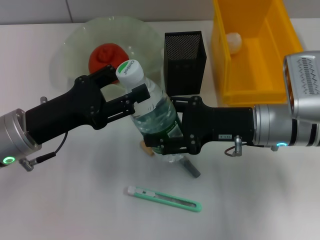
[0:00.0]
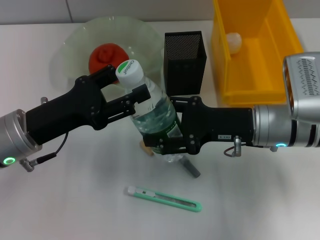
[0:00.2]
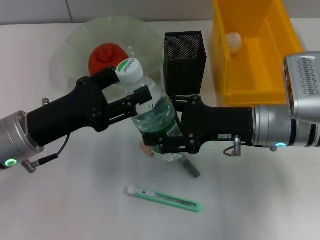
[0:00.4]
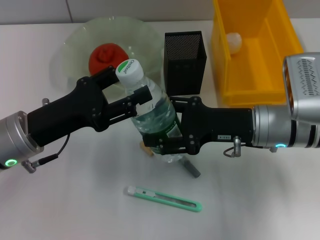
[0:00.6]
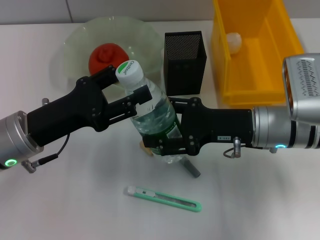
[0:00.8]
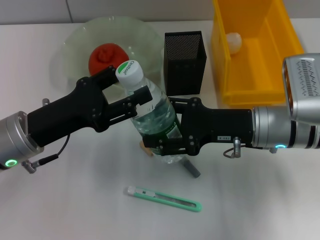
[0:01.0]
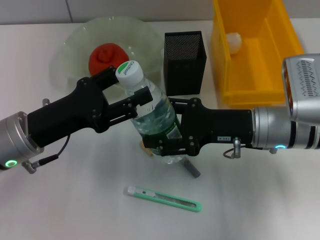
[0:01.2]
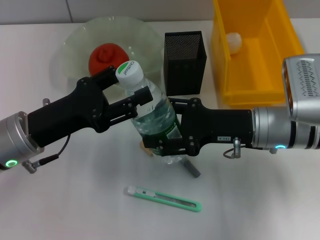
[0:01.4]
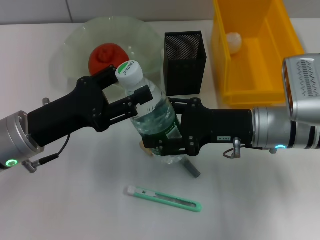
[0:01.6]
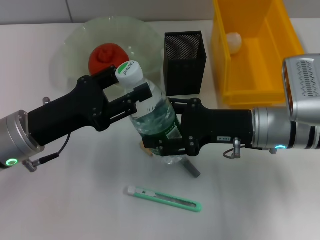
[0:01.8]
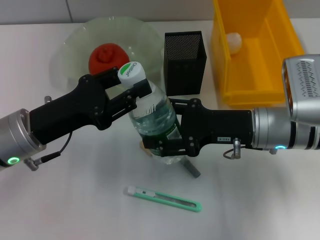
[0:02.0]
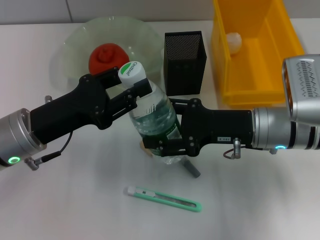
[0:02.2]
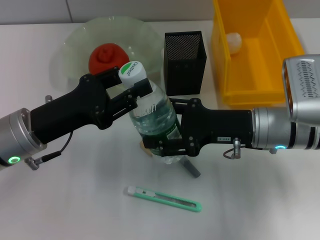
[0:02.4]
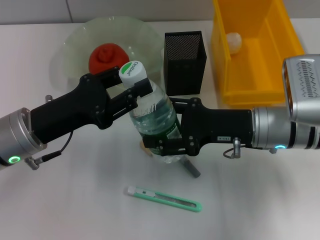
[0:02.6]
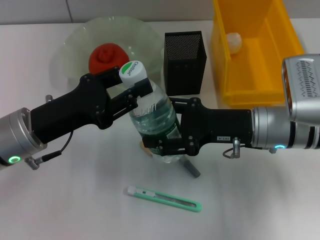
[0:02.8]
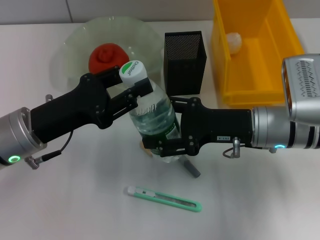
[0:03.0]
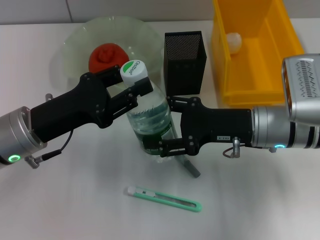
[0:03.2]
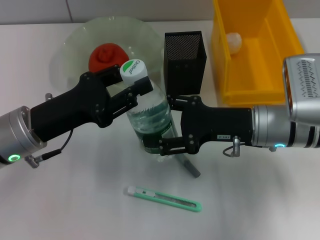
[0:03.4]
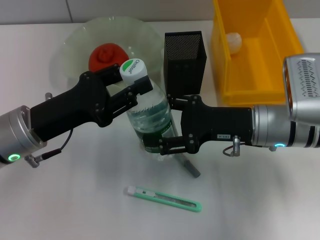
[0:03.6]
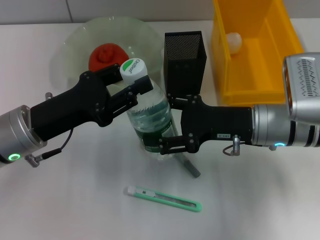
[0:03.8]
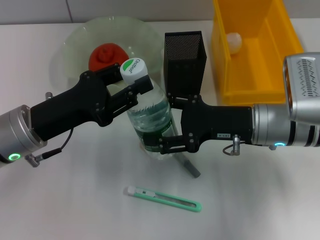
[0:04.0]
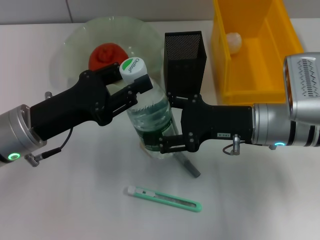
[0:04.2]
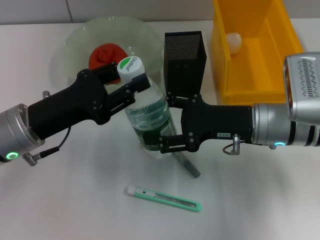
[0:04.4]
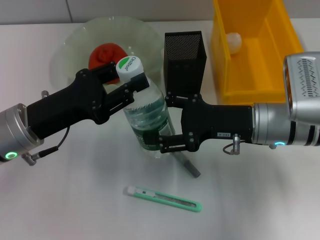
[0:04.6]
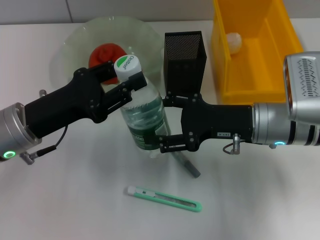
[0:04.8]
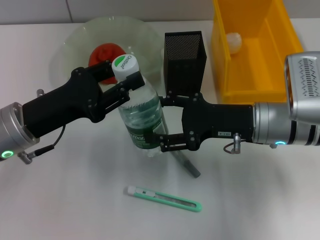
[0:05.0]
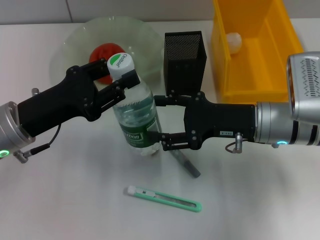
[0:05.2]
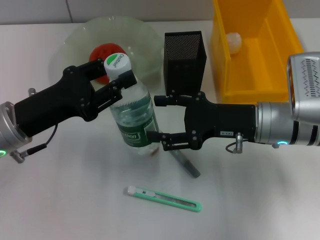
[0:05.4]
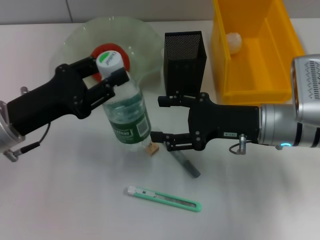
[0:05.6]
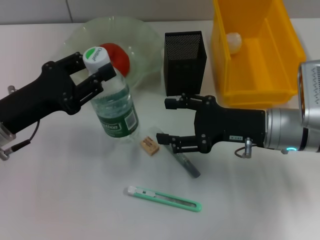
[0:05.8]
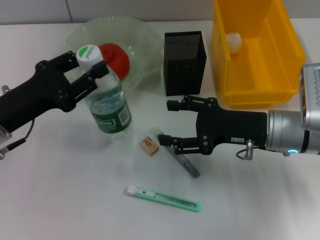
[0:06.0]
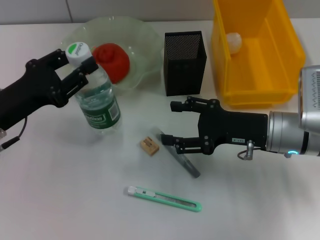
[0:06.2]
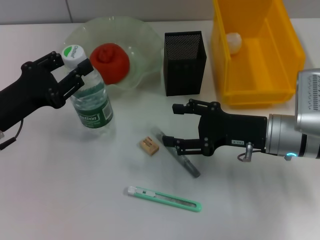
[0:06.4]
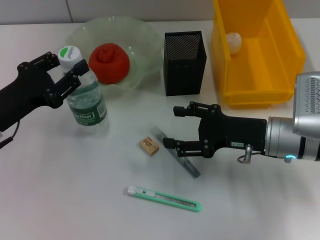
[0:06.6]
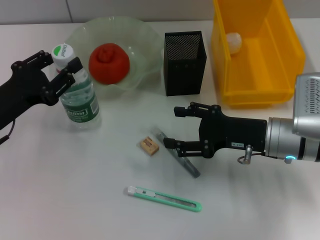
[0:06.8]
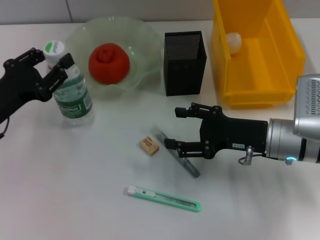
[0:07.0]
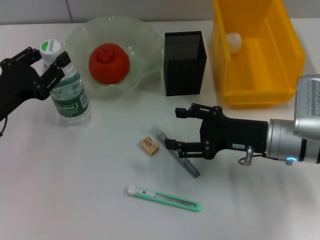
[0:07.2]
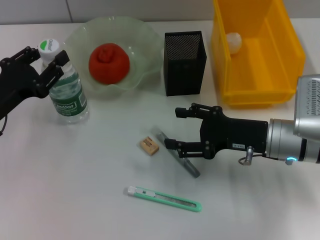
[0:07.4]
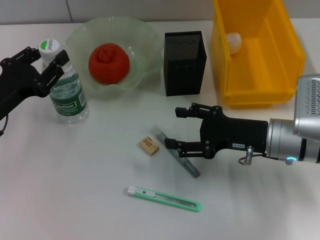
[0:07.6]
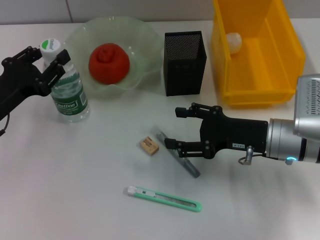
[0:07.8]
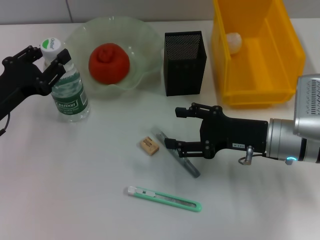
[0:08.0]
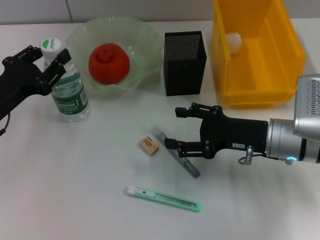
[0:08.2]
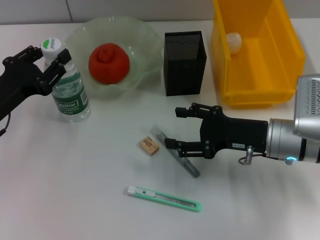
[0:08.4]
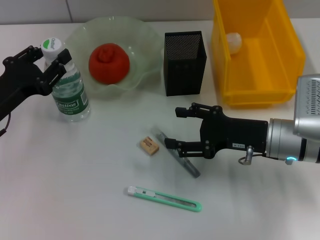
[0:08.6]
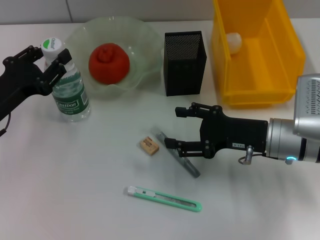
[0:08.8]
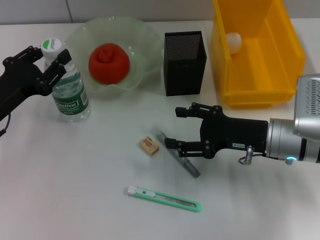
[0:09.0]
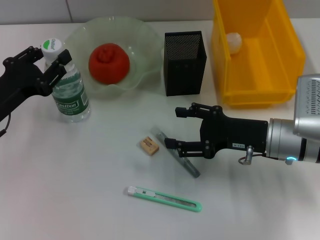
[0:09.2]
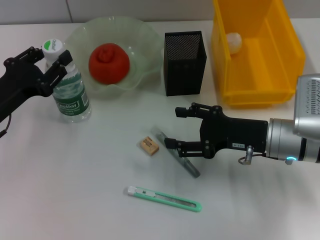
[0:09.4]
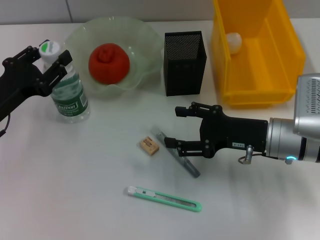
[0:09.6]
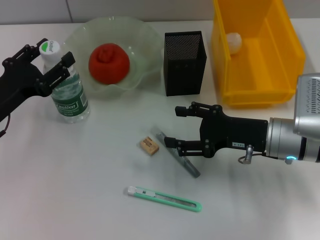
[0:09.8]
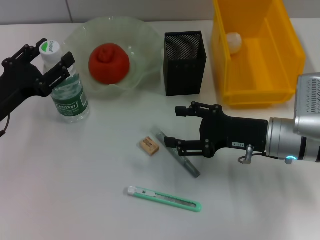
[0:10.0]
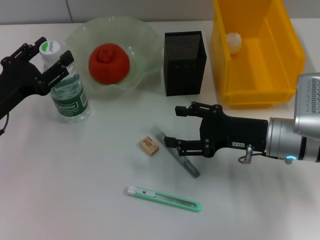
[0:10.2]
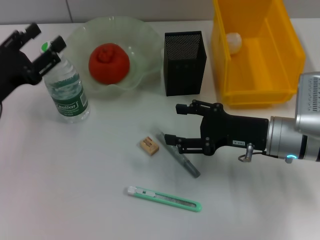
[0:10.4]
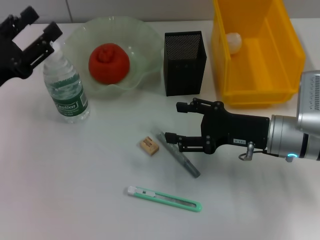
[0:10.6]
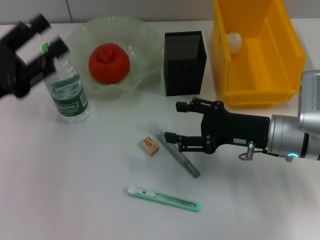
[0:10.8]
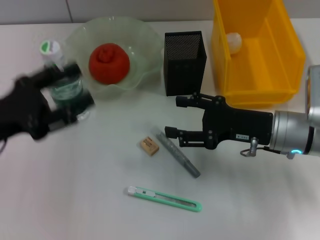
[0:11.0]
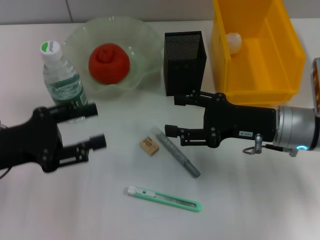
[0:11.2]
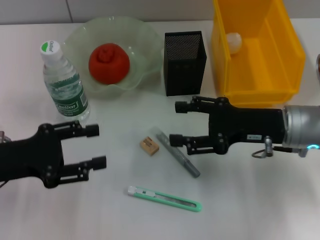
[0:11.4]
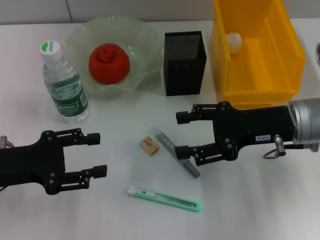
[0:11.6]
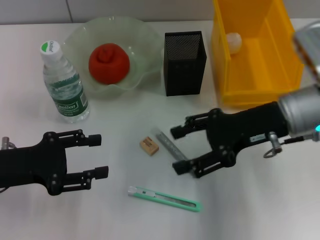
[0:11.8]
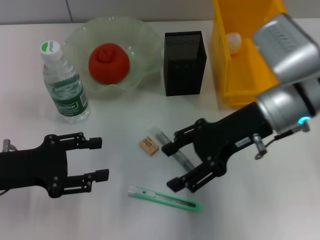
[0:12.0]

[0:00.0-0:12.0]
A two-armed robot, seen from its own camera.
Step, 0:00.0 to 0:05.4: Pass the water bottle from the right hand to the left hand.
Step, 0:05.6 to 0:09.6: Place the water bottle on the table with the left hand.
0:00.0 to 0:01.6: Neither gripper changes place.
0:01.6 to 0:03.0: The left gripper closes up.
0:03.0 to 0:04.4: Both grippers stay about where they are.
0:07.6 to 0:09.0: The two grippers keep their place.
0:09.0 to 0:10.4: The left gripper opens.
0:10.4 to 0:12.0: The right gripper shifts approximately 10 cm upward.

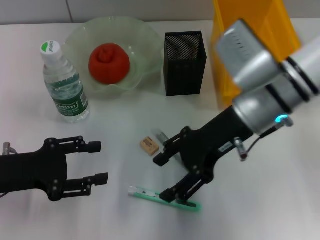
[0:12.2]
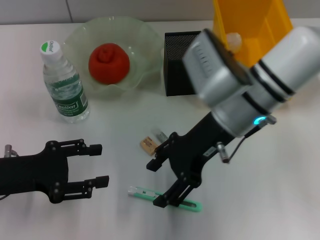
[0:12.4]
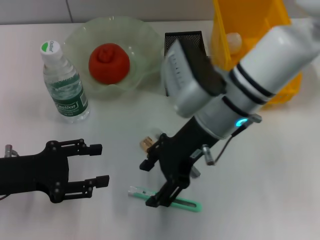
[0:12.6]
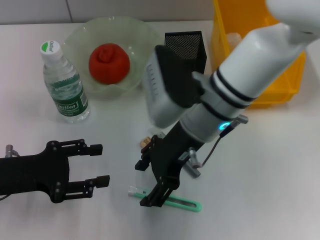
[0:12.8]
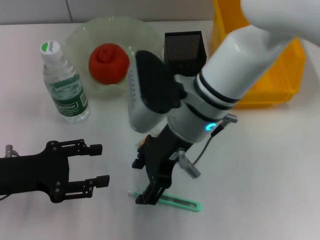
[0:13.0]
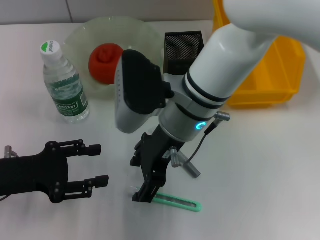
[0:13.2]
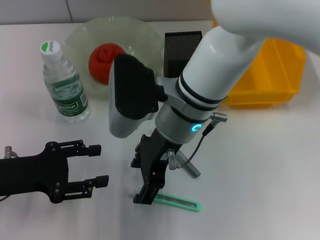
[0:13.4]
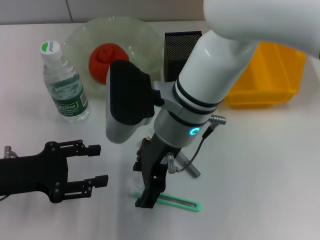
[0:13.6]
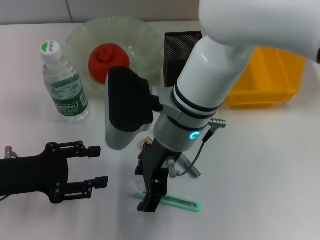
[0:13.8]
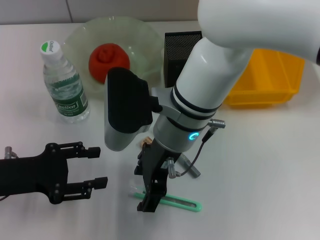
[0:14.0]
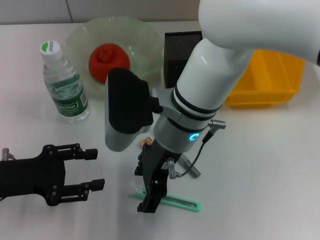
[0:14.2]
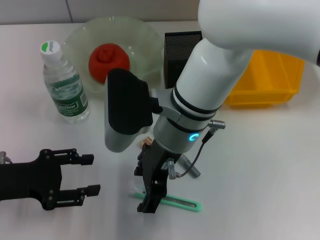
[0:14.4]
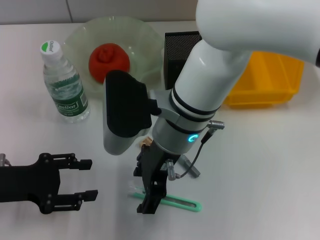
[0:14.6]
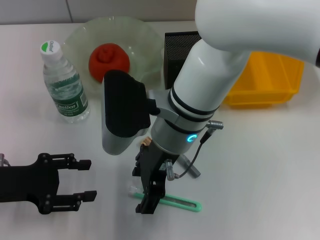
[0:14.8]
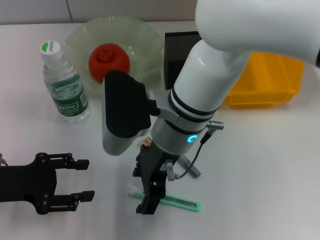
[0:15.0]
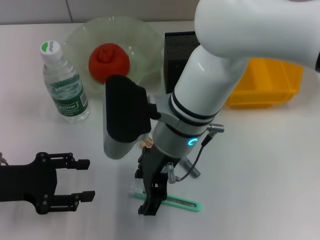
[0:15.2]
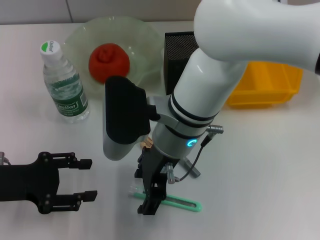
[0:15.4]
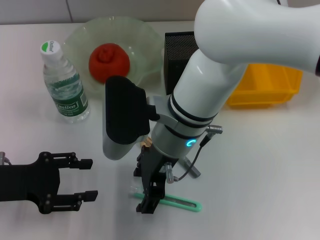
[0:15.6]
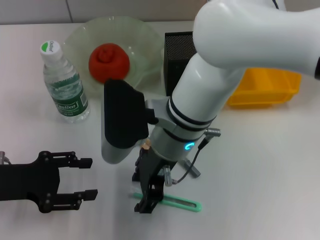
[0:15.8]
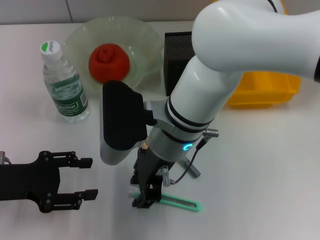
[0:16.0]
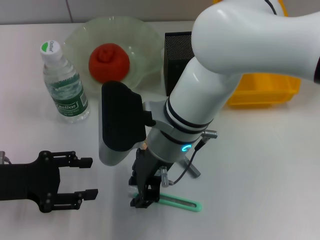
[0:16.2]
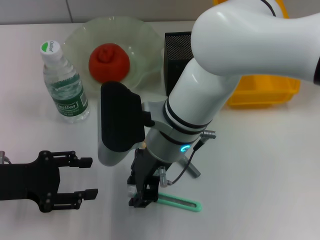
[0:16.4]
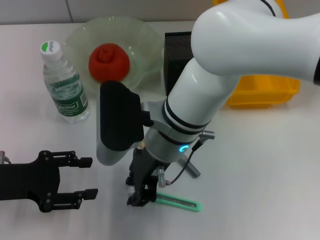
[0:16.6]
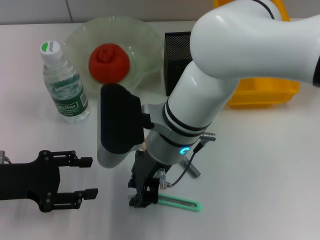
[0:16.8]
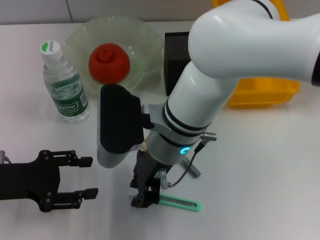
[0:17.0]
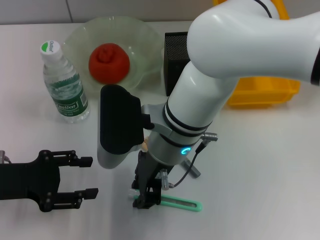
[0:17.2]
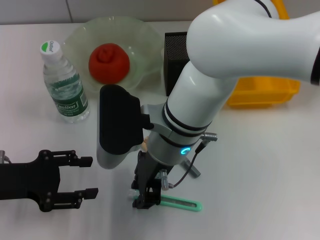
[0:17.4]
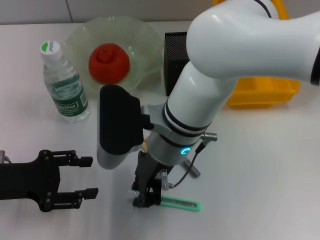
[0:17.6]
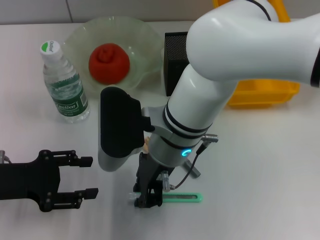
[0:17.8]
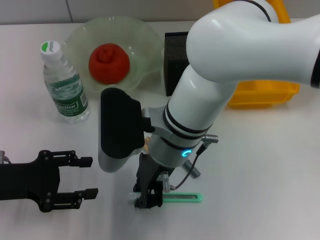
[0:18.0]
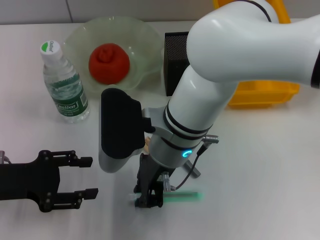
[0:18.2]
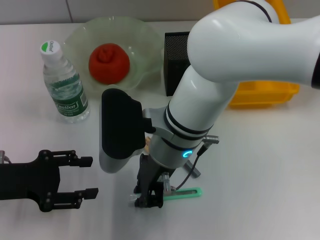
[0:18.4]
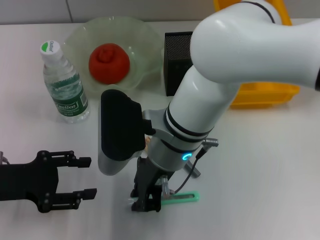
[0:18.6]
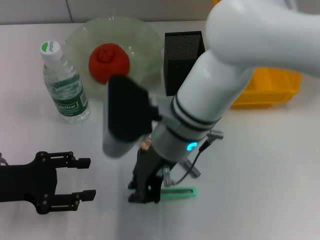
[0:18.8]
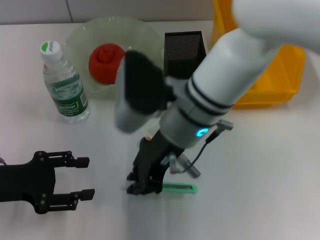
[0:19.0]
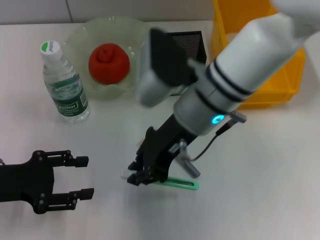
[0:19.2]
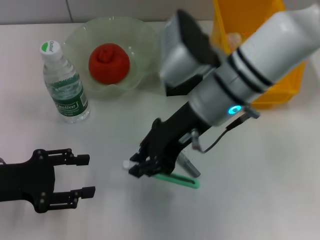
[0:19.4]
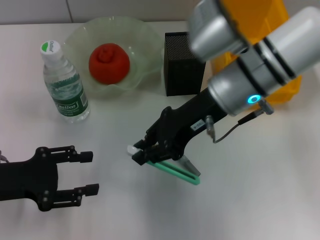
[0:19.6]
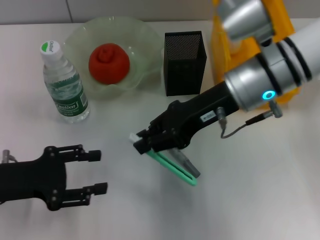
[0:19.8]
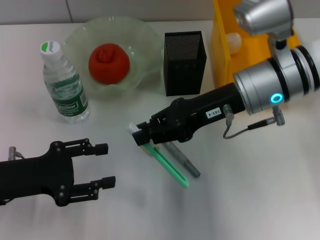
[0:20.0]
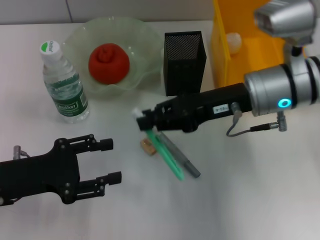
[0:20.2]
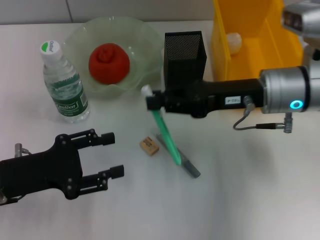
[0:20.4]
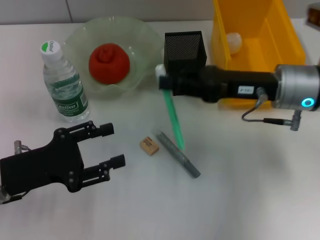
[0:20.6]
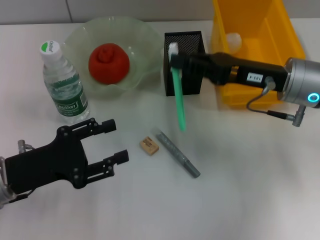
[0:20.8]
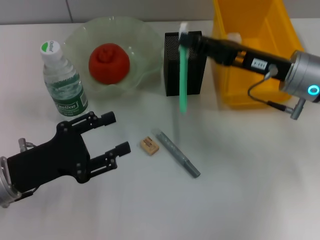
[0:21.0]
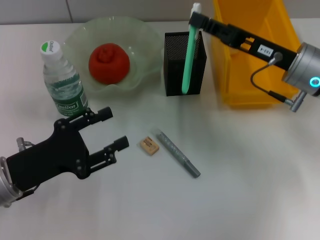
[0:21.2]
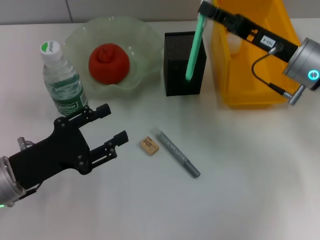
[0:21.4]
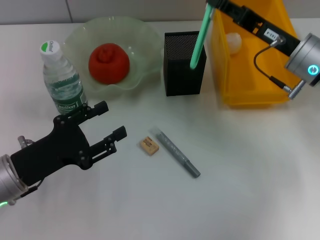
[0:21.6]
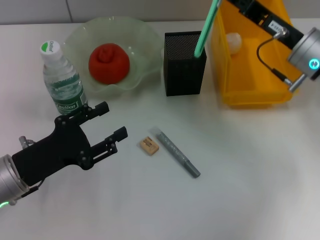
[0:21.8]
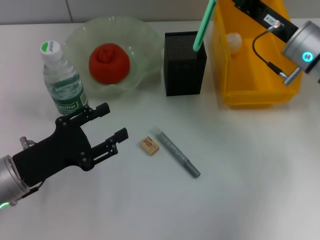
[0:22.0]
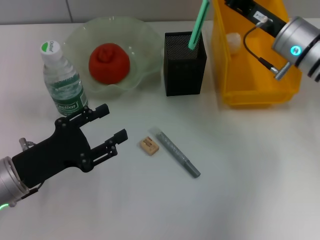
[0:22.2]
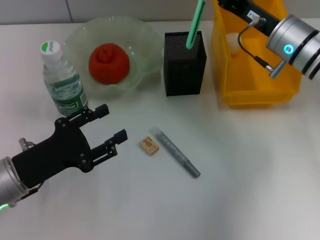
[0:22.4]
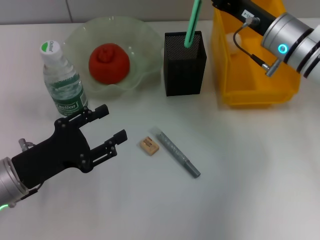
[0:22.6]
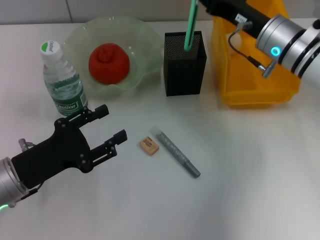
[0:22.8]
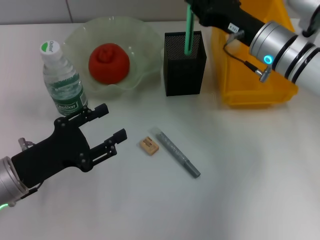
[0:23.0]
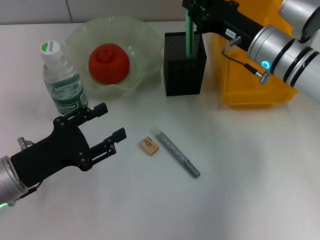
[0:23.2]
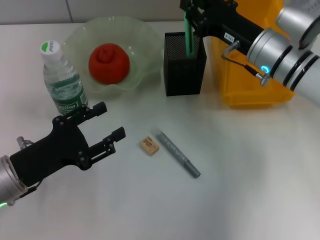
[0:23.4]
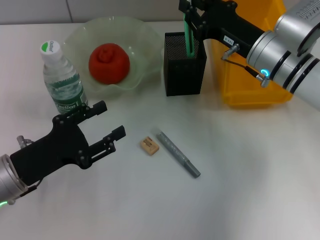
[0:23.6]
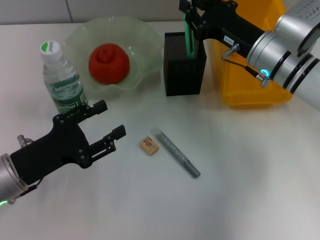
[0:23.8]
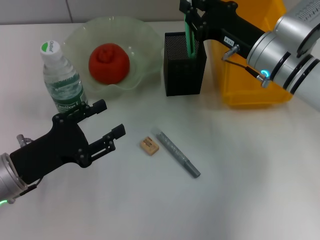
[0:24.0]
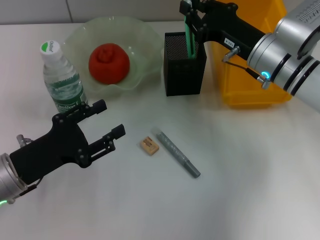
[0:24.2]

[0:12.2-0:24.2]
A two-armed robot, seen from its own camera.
Step, 0:12.2 to 0:18.2: Grab the blue utility knife with the right hand.
0:12.2 to 0:13.8: The right gripper travels to the left by about 10 cm.
0:13.8 to 0:15.2: The grippers make only small movements.
0:15.2 to 0:16.6: The right gripper closes.
0:16.6 to 0:18.2: Both grippers stay put.
0:18.2 to 0:19.8: The right gripper heads to the right and forward, covering some 15 cm.
0:19.8 to 0:21.2: The right gripper moves to the right, roughly 10 cm.
0:21.2 to 0:22.6: The right gripper travels forward by some 5 cm.
